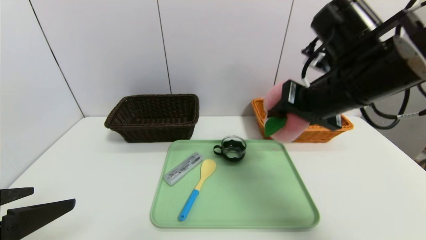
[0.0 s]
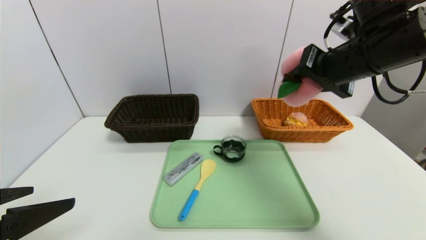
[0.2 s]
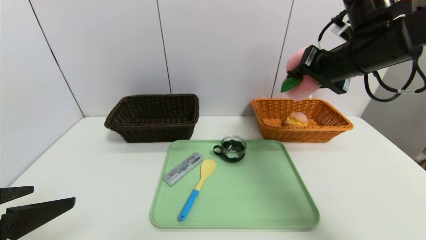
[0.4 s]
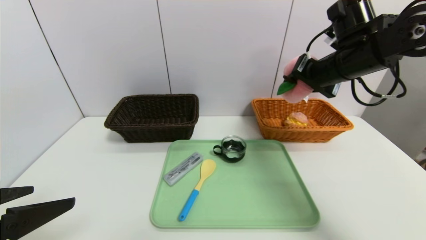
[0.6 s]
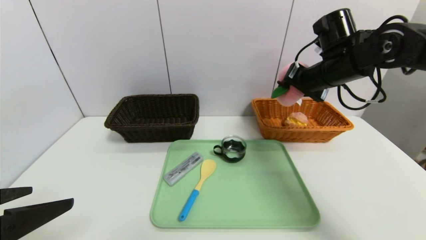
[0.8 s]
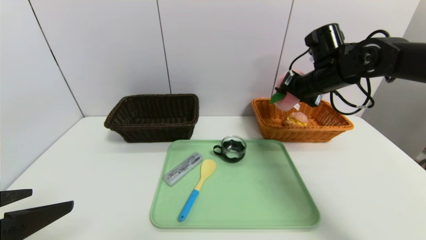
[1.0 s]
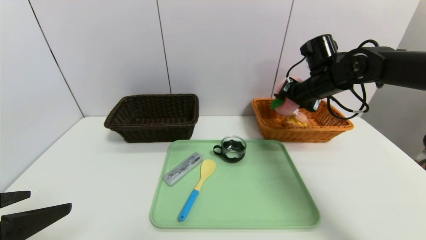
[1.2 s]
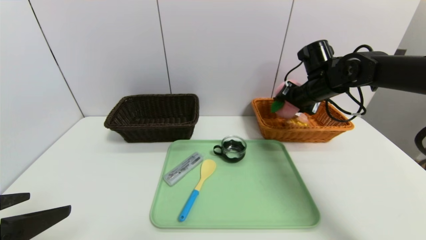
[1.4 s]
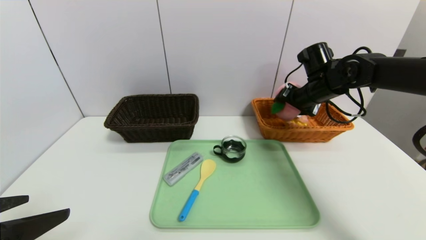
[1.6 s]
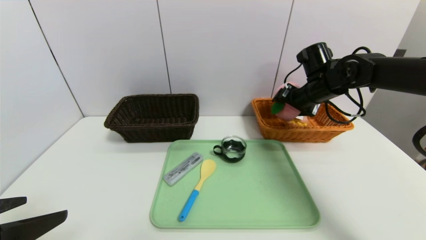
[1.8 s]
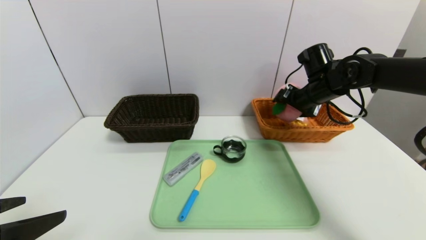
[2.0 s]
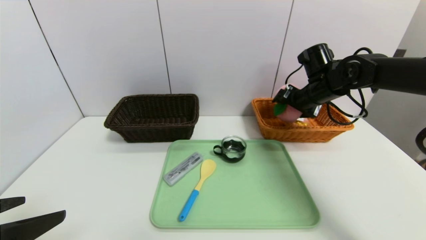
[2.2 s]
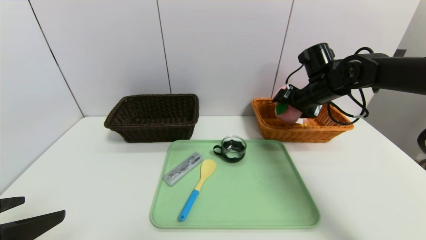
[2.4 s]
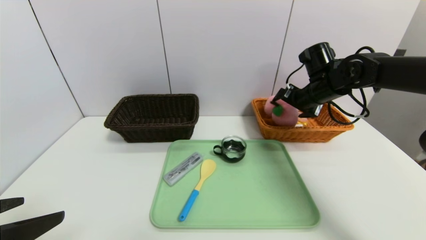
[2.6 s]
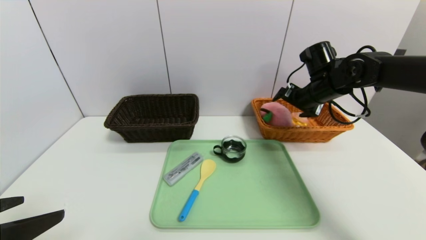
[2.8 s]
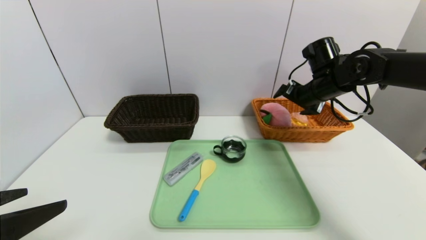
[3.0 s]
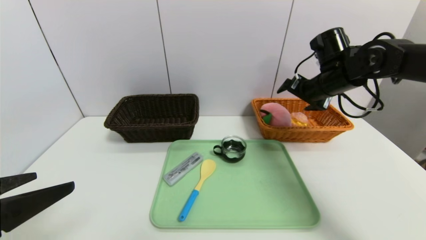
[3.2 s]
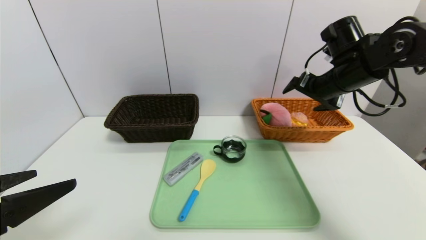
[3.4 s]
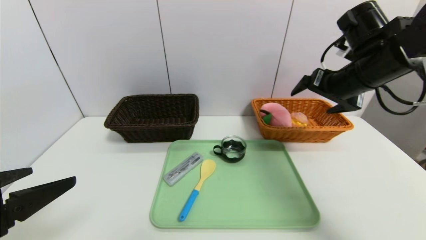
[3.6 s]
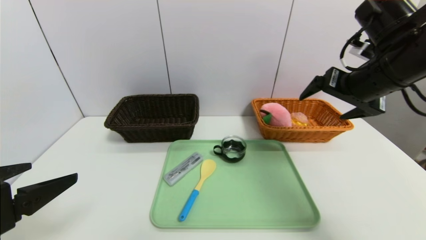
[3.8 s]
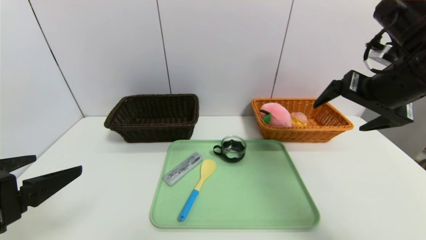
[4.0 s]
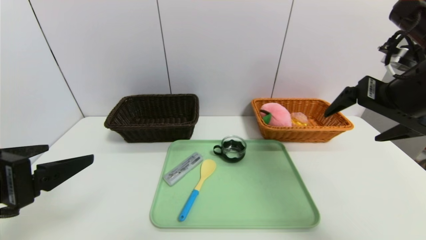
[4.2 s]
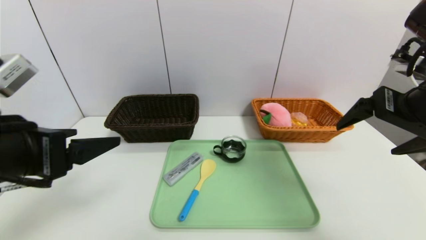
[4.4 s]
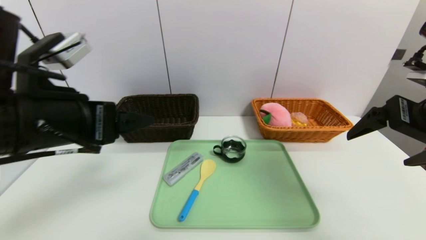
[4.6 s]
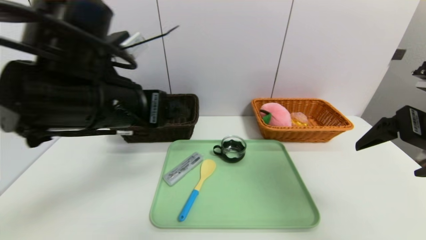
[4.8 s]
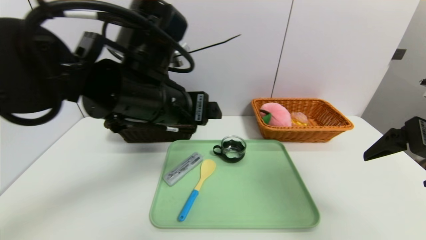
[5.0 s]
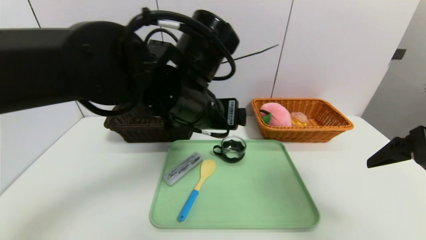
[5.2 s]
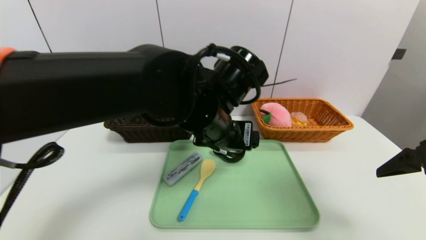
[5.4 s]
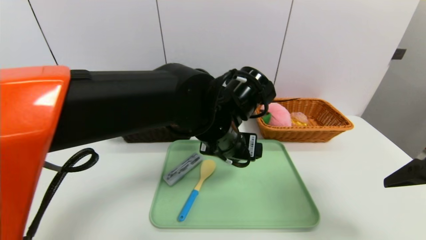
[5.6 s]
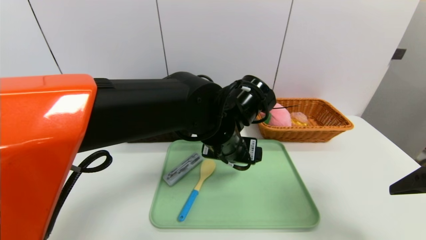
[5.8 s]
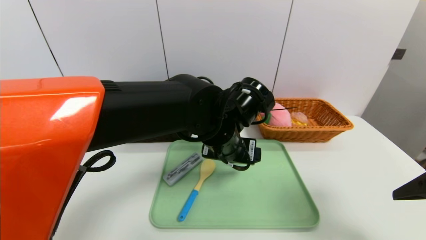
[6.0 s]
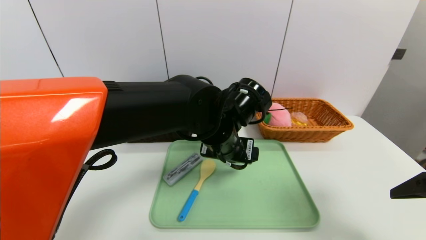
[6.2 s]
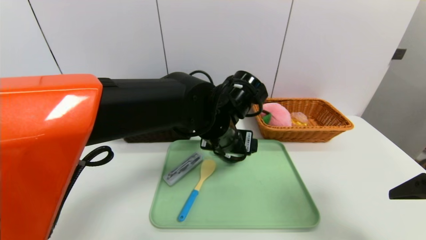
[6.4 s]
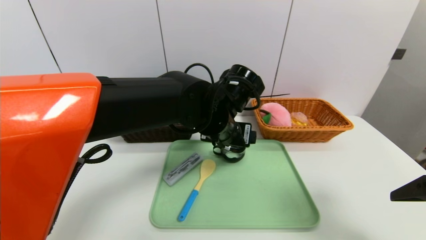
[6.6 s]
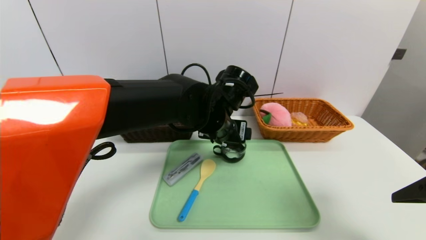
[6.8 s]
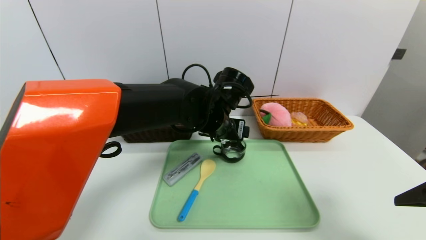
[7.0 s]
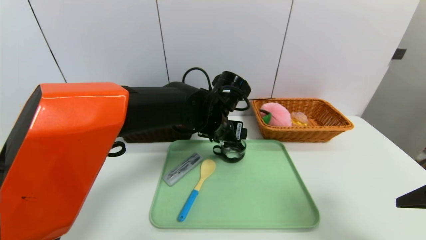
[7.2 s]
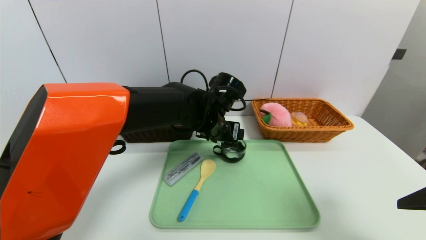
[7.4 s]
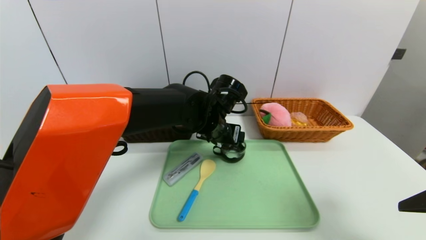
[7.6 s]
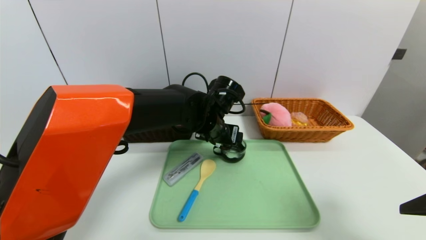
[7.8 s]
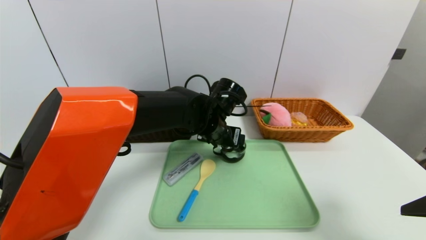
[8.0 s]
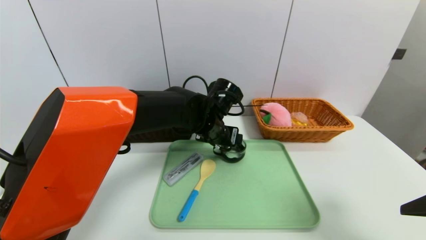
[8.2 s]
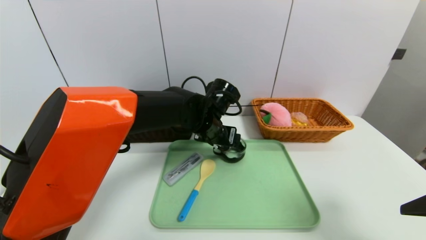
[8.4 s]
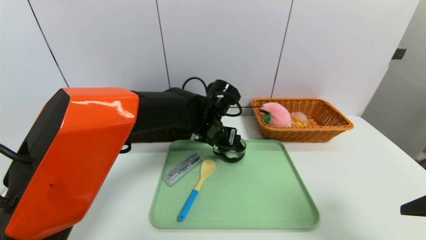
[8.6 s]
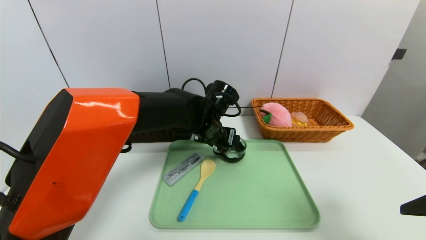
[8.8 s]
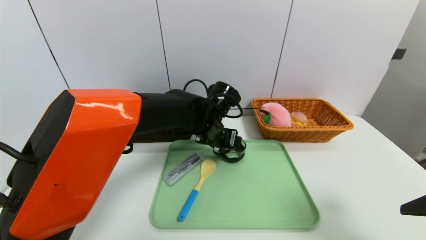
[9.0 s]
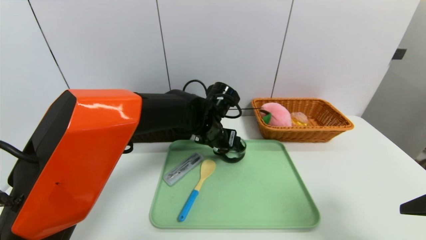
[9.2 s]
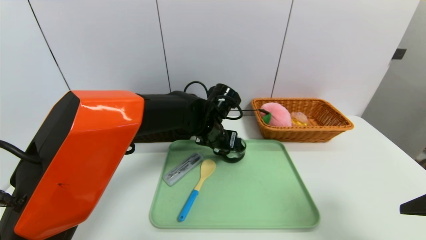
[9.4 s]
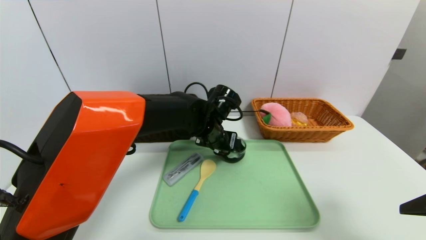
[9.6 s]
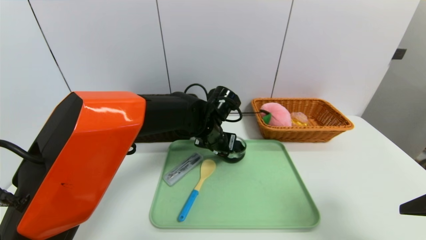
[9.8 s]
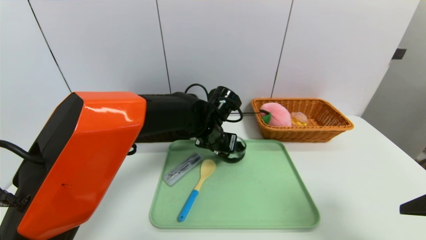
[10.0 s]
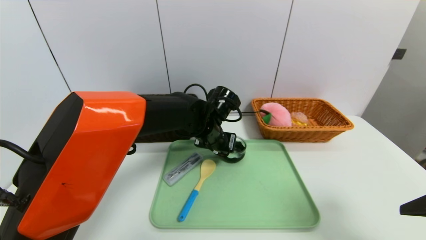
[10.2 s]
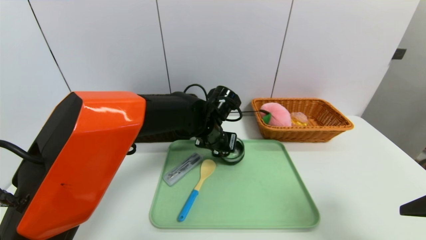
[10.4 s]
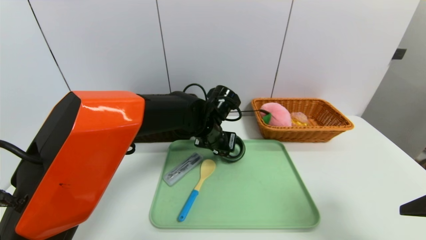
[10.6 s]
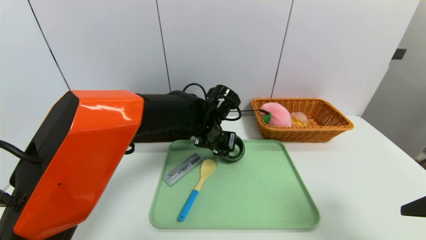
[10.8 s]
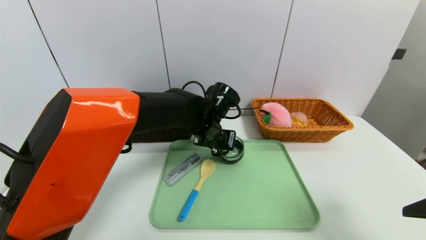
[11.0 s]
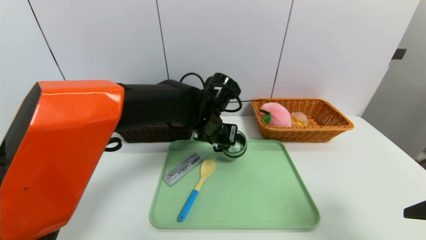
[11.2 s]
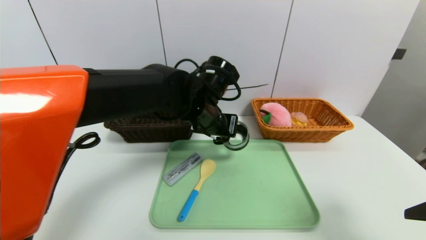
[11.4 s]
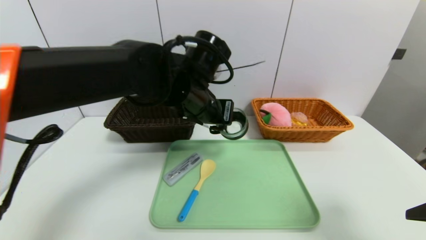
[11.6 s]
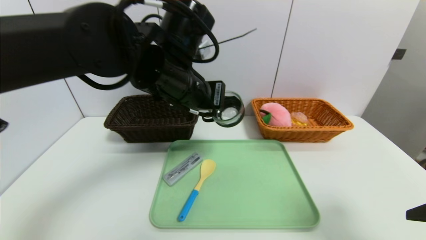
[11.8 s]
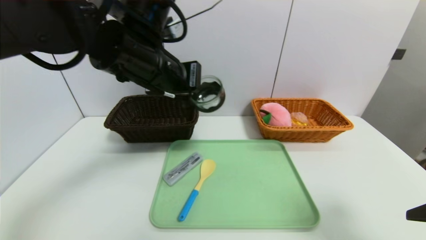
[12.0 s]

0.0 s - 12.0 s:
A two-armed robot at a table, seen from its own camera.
Task of the whole recording: place the food in the right basket with the right gripper, and place the non food items in the left basket with the left gripper.
Step, 0.0 s - 2.8 s: Grasp the peach doll and put it in the right basket.
0.0 s - 1.6 s: The right gripper shifts approximately 20 cm forward and downward, and opens up.
1.6 s - 3.0 s: The grippers move only a little.
3.0 s - 4.4 s: The right gripper heads backward and upward, covering approximately 20 cm, while the left gripper goes approximately 5 cm forward.
4.4 s - 6.0 s: The right gripper moves backward and downward, about 10 cm. The left gripper moves to the right and forward, roughly 30 cm.
6.0 s - 7.6 s: The left gripper is displaced forward by roughly 5 cm.
7.6 s - 9.0 s: The grippers make only small movements.
9.0 s - 10.4 s: The left gripper closes its fingers.
10.4 s - 12.0 s: The left gripper travels upward, to the left and backward by approximately 20 cm.

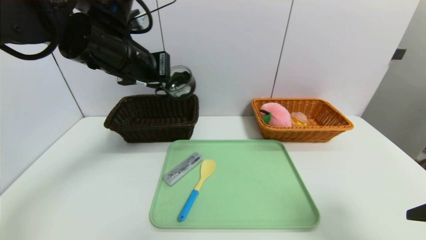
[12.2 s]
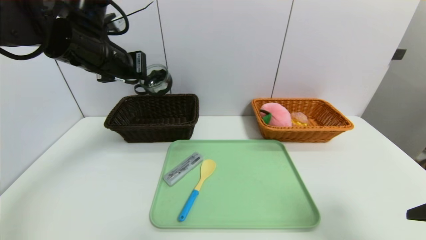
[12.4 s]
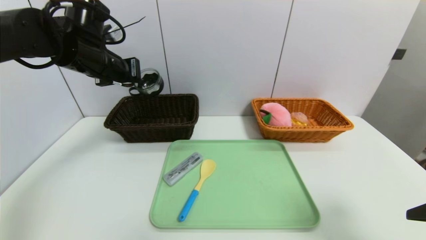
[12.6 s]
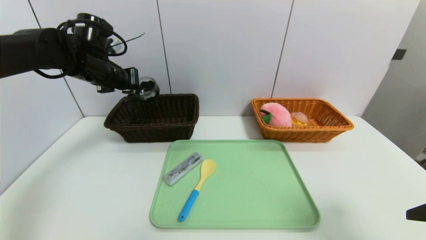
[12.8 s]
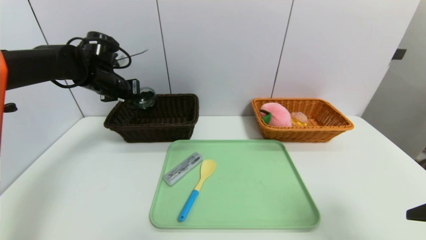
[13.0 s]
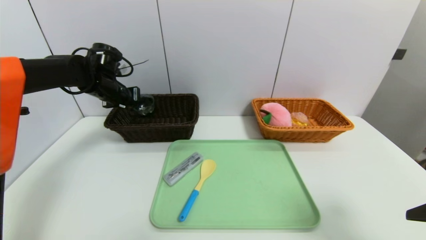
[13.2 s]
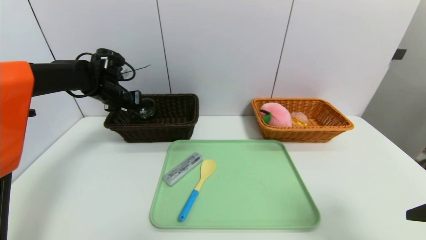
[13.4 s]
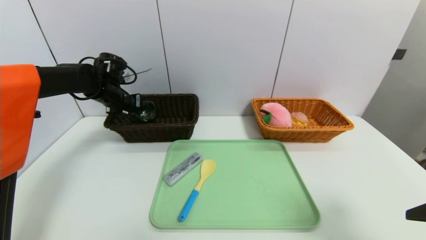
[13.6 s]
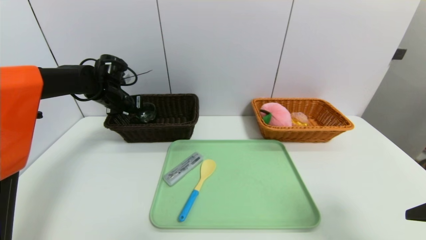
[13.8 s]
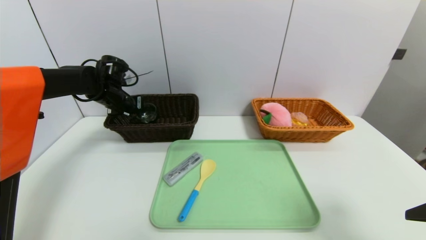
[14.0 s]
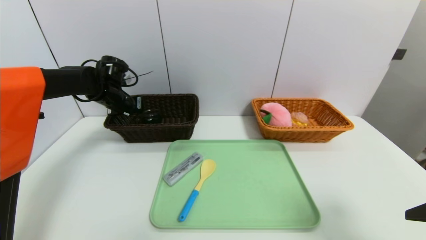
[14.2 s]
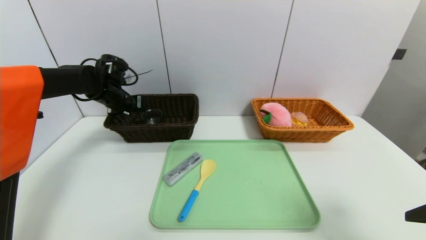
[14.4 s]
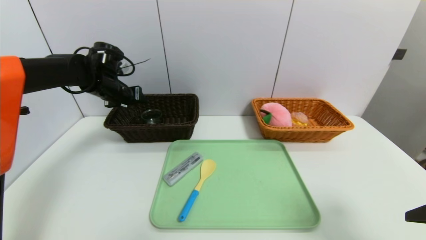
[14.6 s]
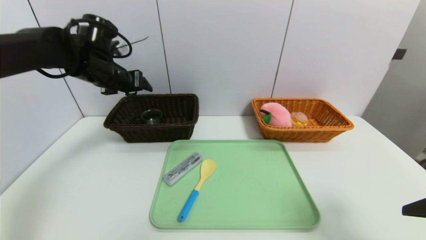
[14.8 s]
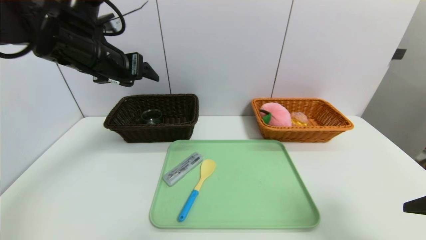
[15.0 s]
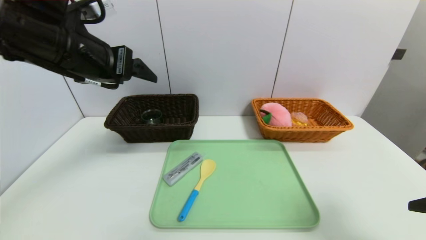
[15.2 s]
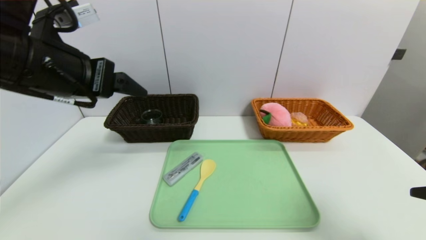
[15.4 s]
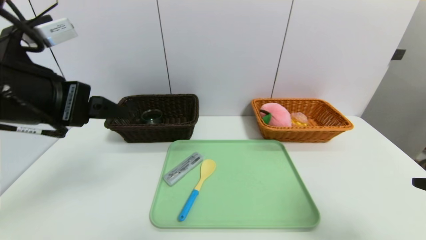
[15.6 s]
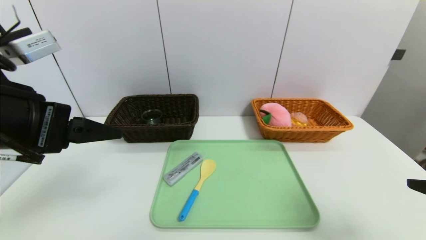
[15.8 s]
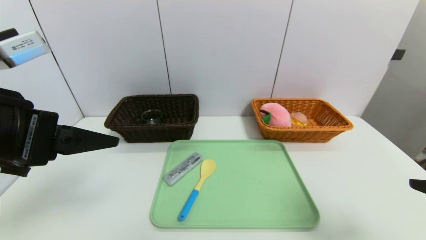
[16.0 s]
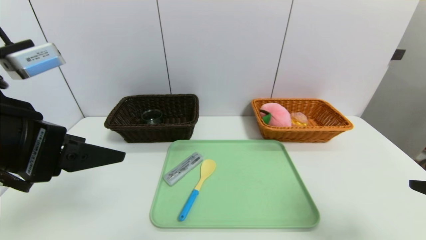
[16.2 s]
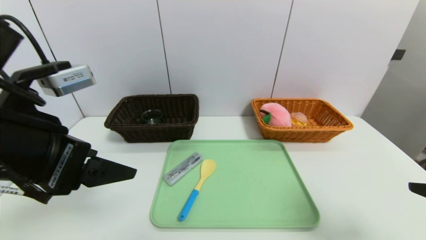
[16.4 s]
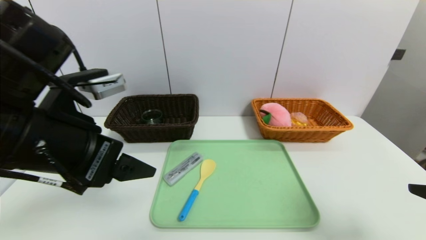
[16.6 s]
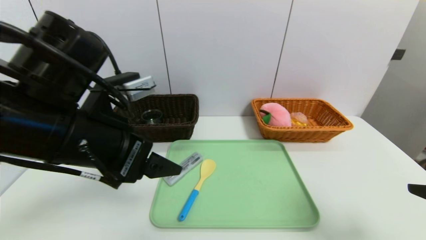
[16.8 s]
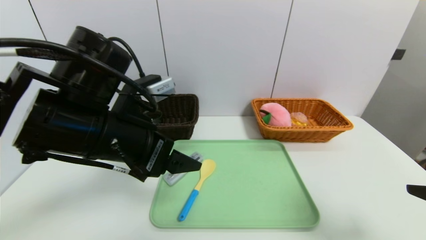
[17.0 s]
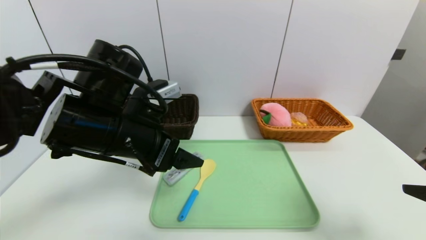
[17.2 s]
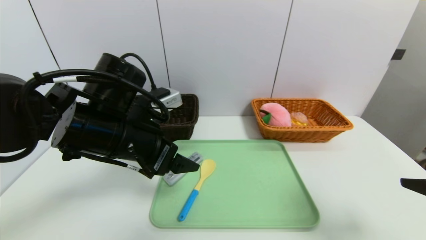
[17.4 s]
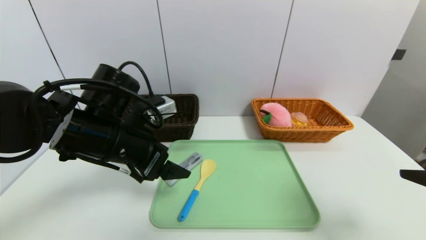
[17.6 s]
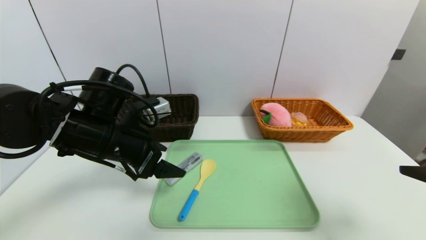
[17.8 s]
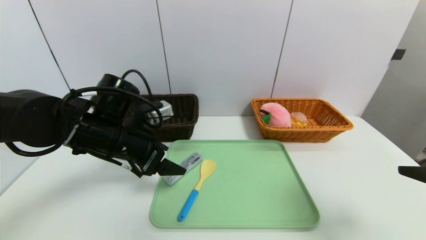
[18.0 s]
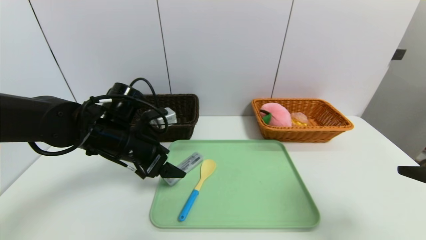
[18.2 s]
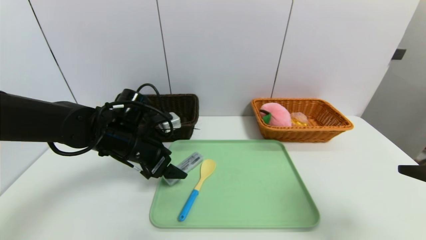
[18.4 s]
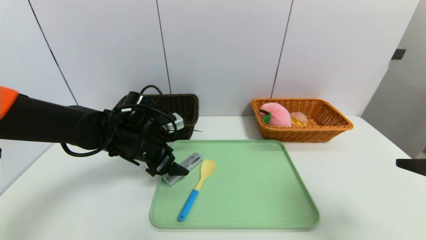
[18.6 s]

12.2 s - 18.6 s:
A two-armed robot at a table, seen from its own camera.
Task of the whole recording: place the food in the right basket with the right gripper, and place the non food items in the left basket with the left gripper.
Step, 12.2 s - 14.6 s: Grasp the black glass cup and put it in the left basket.
12.2 s - 13.8 s: The left gripper is displaced forward, downward and to the left by some 25 cm.
13.8 s - 15.4 s: The left gripper heads backward and upward, covering approximately 30 cm, and opens up.
15.4 s - 17.0 s: The left gripper shifts some 10 cm downward and to the right.
17.0 s - 18.6 s: The left gripper goes roughly 15 cm forward and downward.
